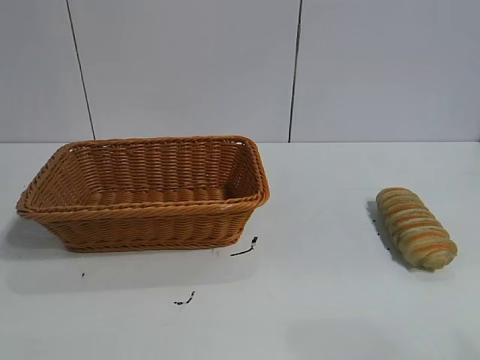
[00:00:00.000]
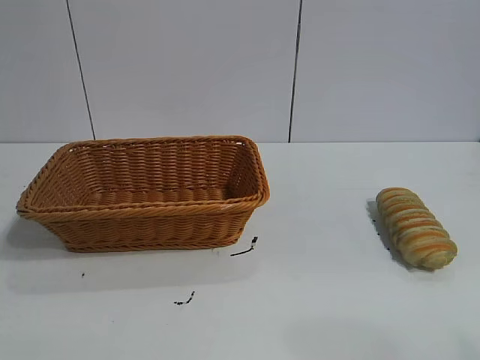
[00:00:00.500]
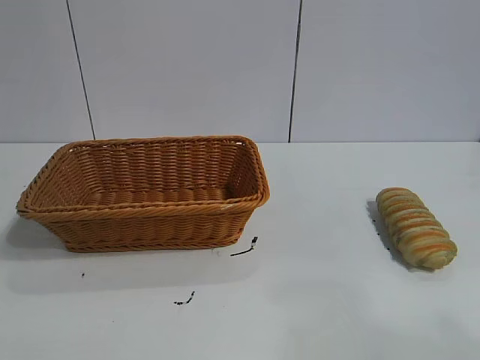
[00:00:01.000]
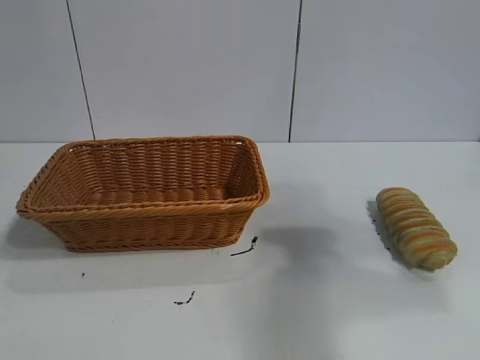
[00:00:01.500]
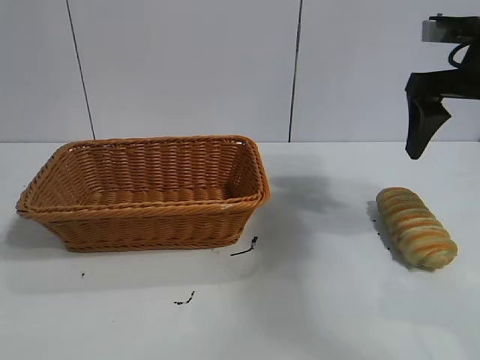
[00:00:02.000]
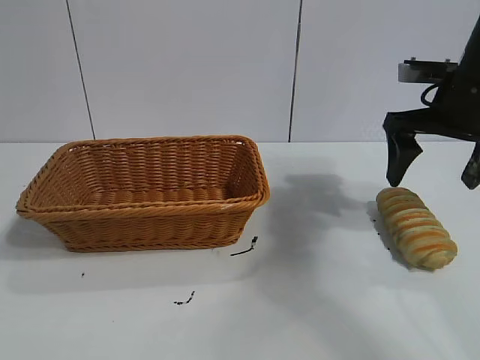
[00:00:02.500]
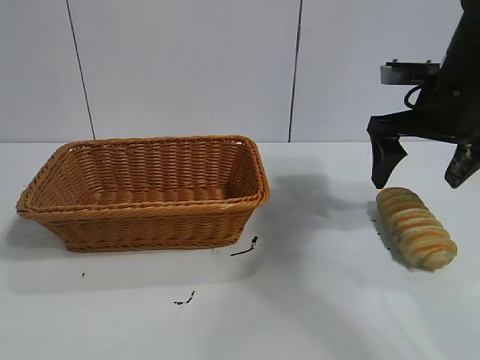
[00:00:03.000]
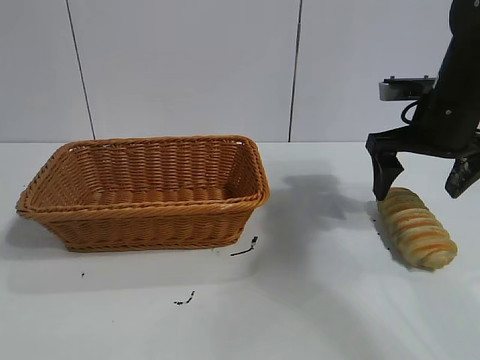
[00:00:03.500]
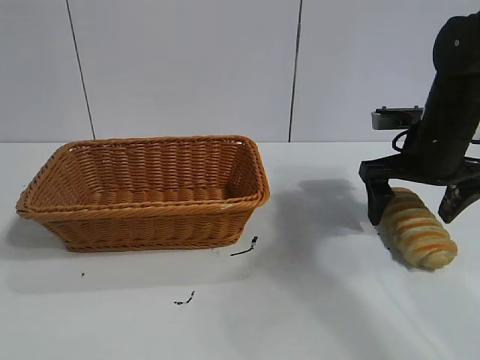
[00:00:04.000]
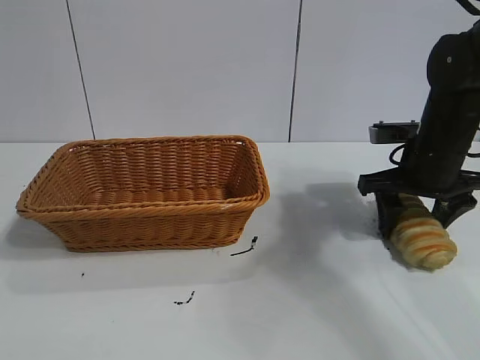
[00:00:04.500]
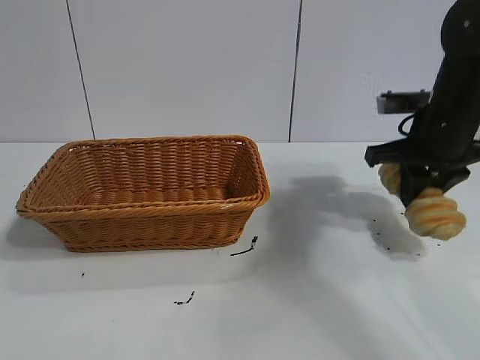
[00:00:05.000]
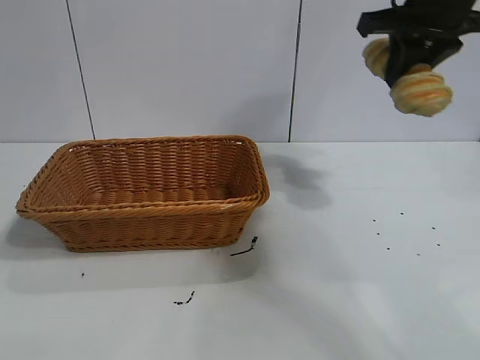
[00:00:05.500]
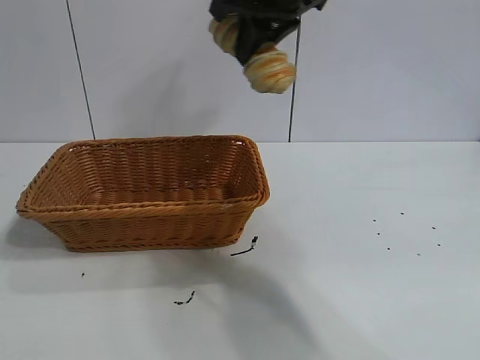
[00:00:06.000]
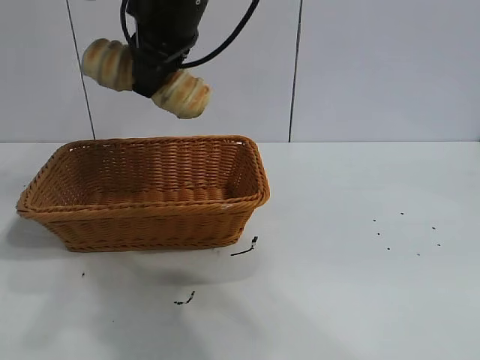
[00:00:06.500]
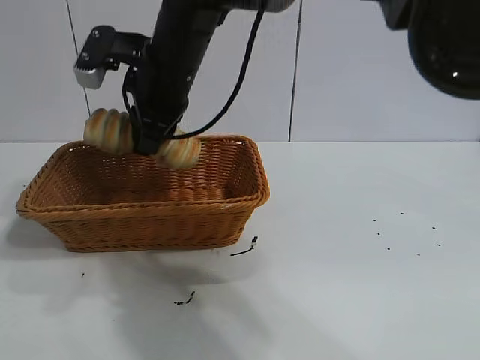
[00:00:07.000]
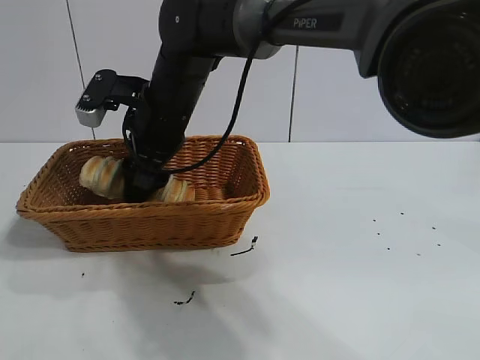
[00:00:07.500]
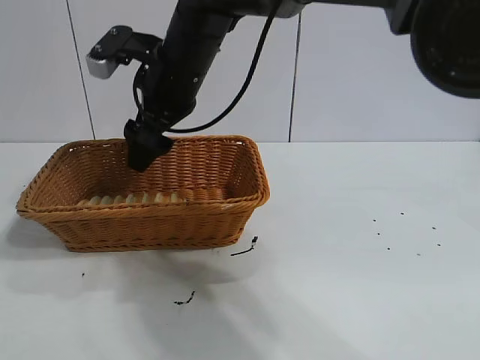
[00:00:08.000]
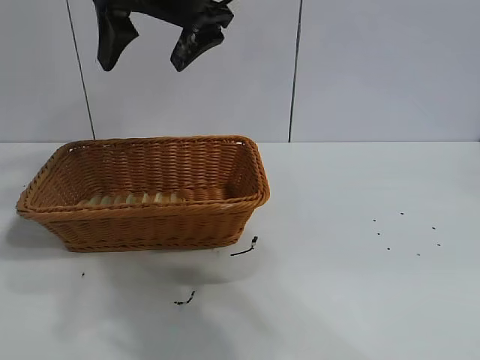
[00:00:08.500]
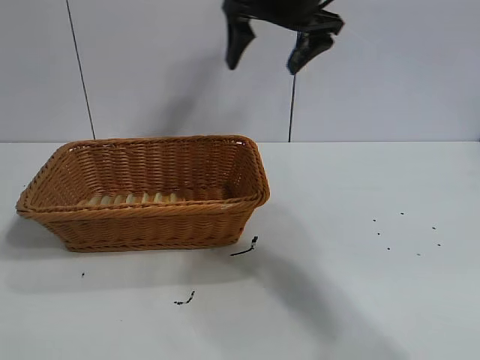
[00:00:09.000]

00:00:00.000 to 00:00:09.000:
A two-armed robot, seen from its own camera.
Task of the whole recording: pick up the long bread and put it into the basket.
Step, 00:00:02.000 to 00:00:04.500: Grasp the long bread with right gripper.
Step, 00:00:05.000 to 00:00:08.000: Place the long bread in the basket with right gripper.
